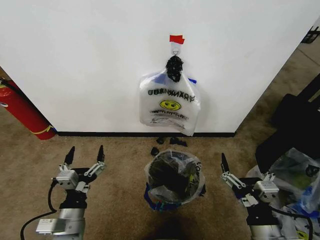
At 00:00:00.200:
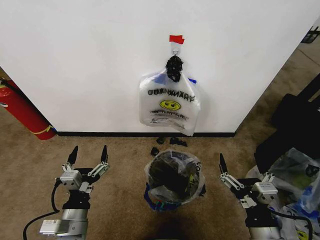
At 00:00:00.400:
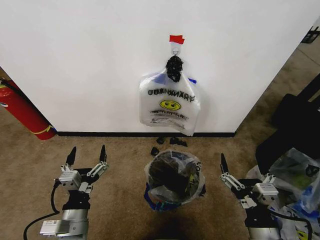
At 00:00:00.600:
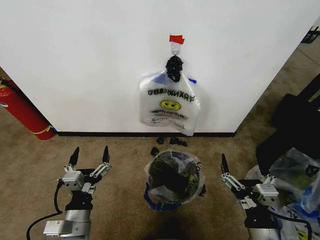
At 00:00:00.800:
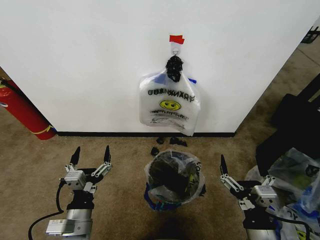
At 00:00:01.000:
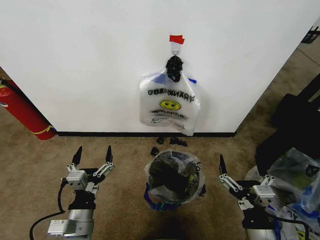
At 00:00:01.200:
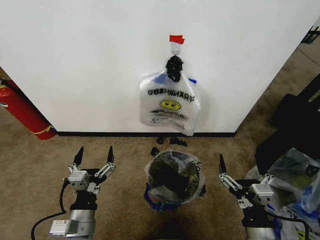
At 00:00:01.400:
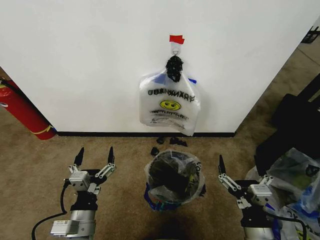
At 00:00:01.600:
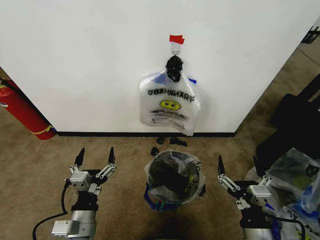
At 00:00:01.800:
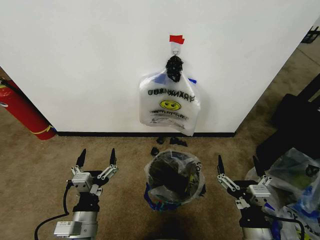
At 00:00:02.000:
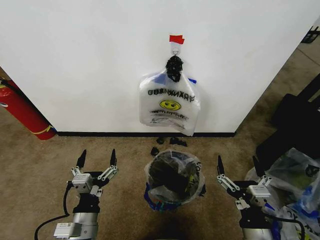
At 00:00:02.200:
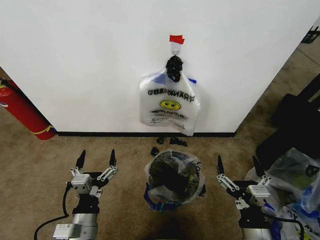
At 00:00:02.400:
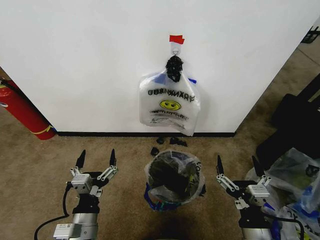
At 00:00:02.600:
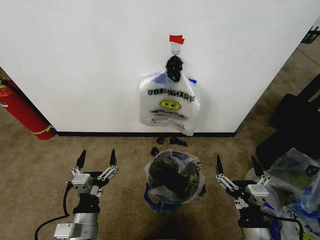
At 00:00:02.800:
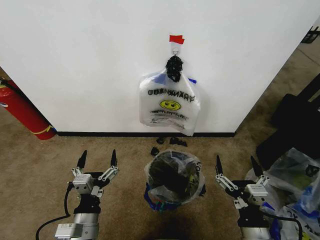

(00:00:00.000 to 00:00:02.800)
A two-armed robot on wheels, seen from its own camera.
Task of the whole recording: Pick up the garbage bag from the wall and place it over the trash bin.
00:00:00.000 - 00:00:01.400: The grippers make only small movements.
00:00:01.400 - 00:00:02.800: The two grippers keep their place.
